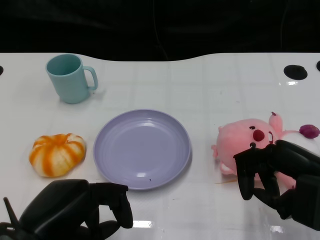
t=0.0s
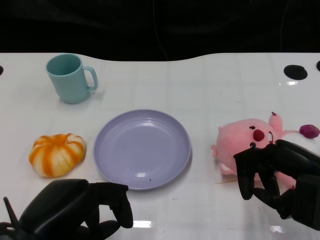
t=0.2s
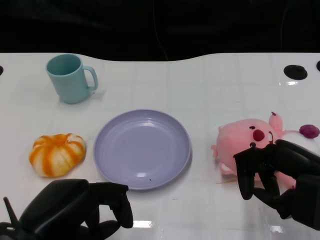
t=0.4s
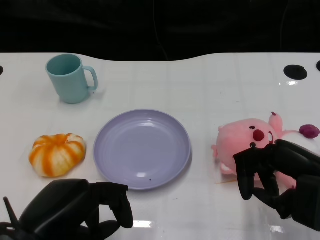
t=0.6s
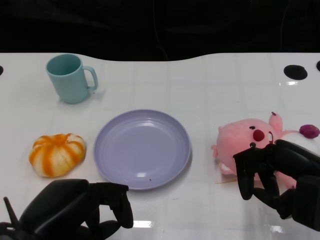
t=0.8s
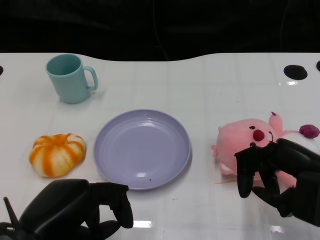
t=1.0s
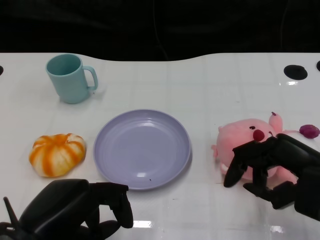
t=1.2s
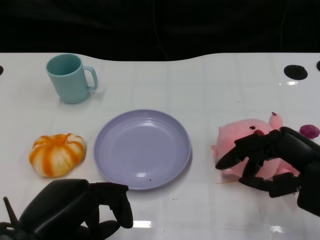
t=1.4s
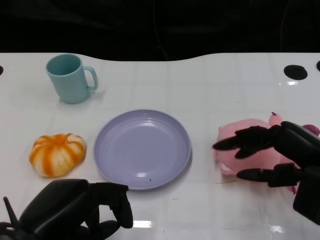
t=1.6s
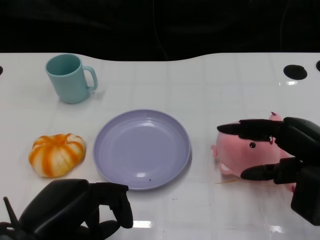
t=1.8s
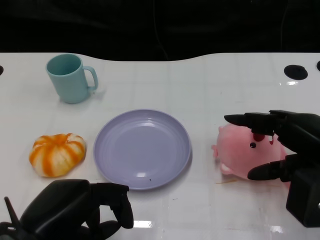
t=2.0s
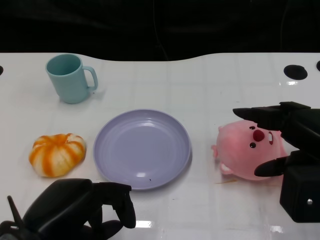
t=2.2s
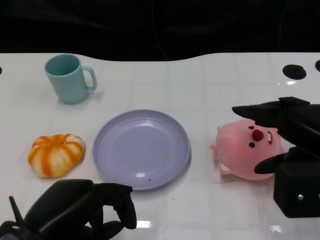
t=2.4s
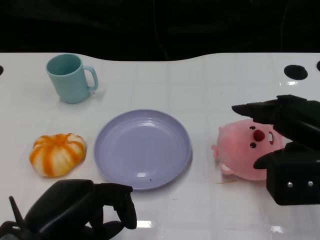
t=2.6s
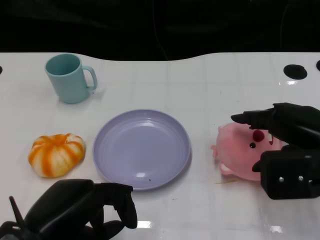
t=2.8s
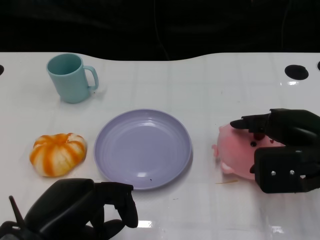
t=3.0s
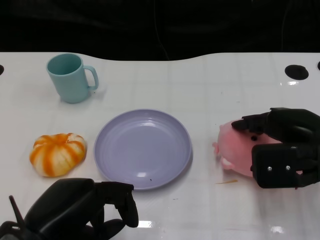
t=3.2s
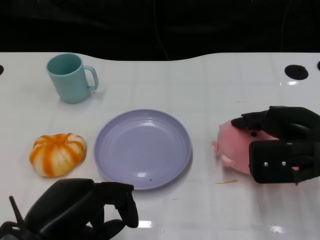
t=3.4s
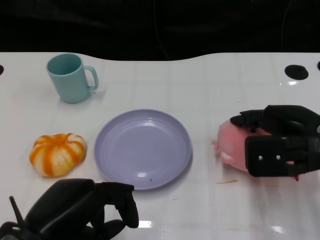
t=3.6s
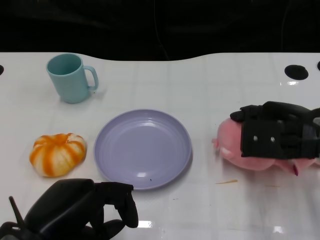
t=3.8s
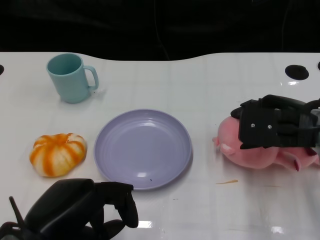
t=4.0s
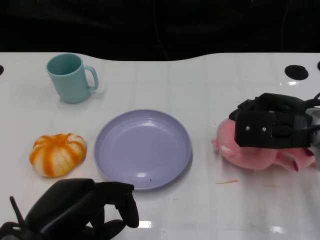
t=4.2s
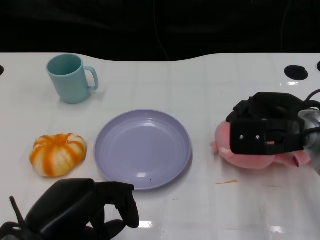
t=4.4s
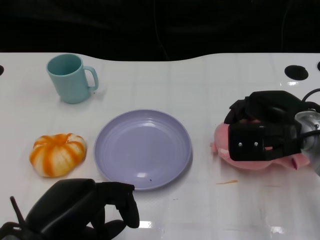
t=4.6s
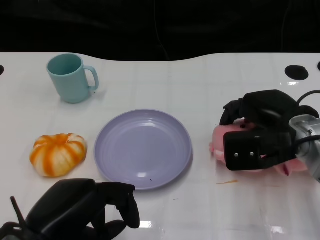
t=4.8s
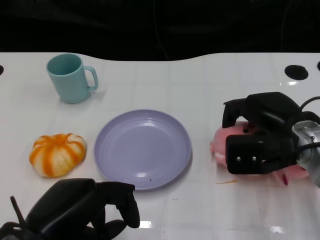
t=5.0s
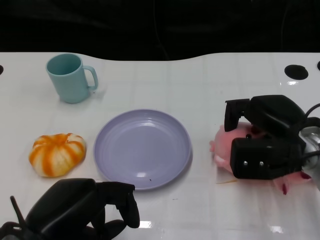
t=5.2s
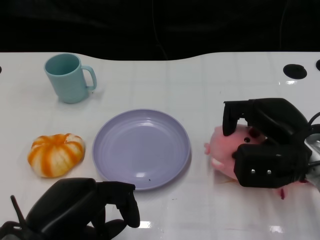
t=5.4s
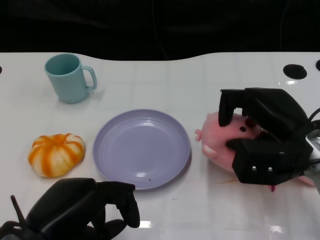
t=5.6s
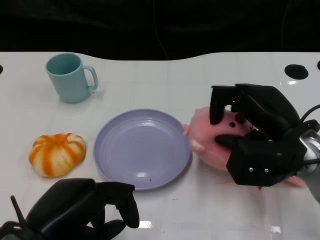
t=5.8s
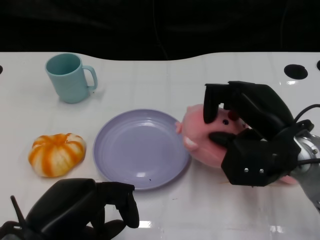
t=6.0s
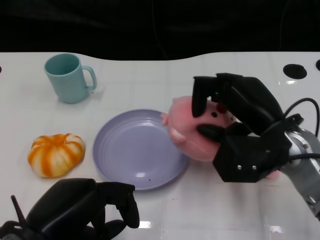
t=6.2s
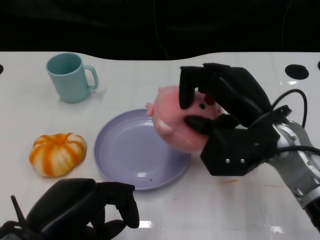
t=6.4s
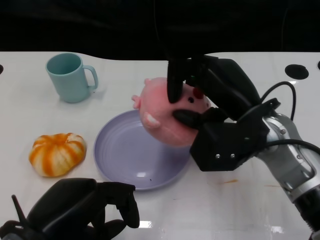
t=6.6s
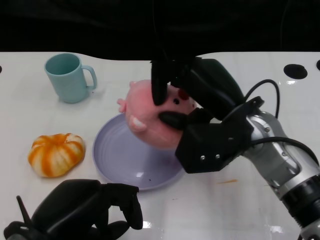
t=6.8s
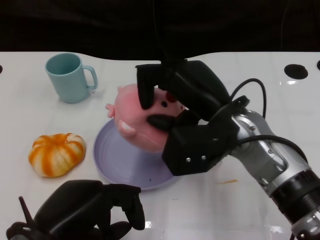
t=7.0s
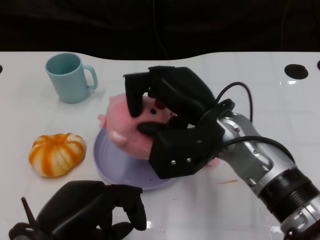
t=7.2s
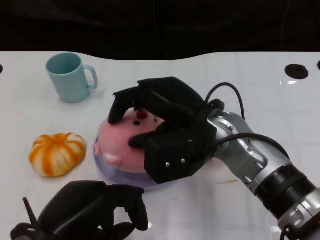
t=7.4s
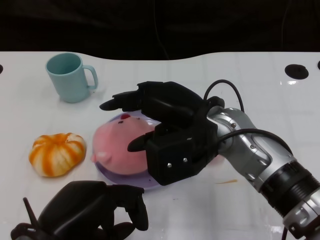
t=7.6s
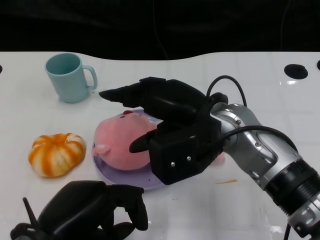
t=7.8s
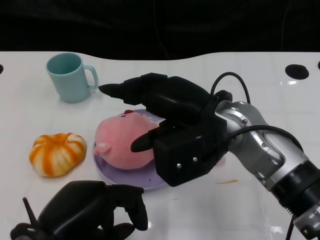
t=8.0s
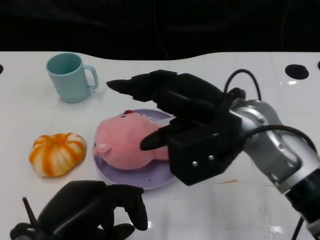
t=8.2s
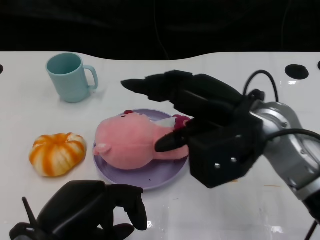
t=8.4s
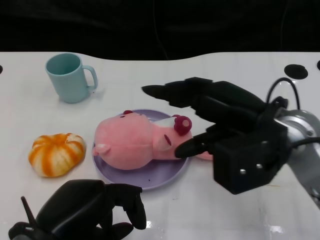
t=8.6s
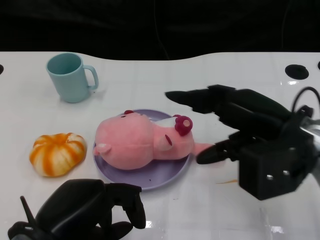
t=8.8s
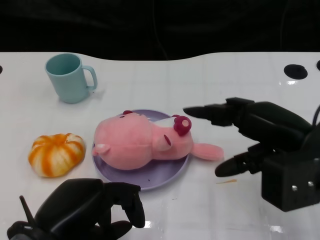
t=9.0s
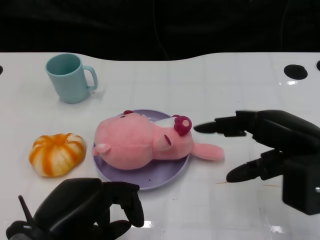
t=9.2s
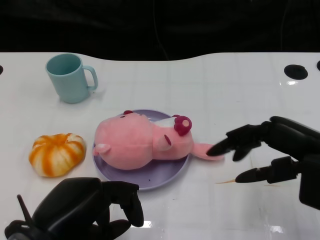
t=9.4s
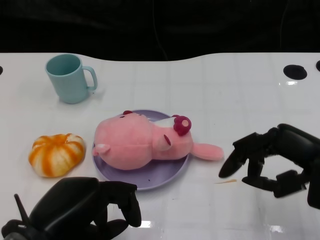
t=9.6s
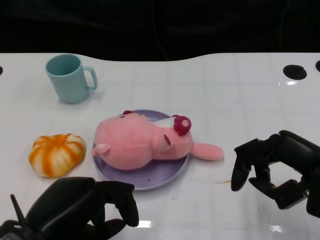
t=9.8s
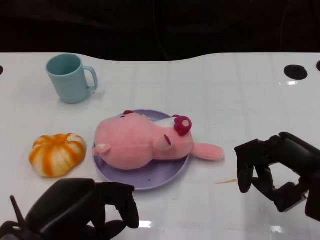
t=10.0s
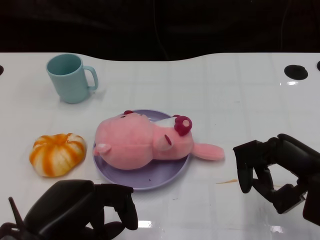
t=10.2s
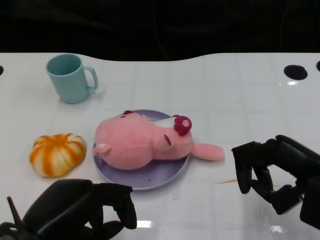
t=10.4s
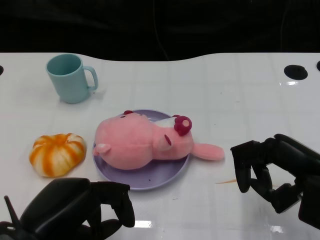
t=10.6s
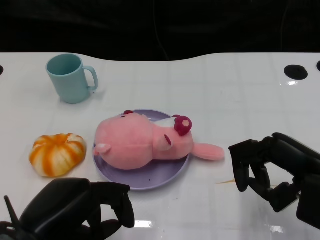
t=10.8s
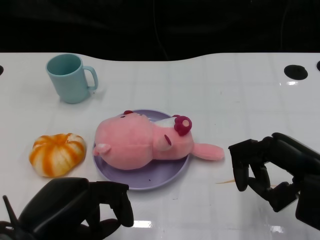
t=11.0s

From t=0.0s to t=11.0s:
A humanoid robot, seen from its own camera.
Task of the whole recording: Pick up the doll on the other side of the plate and place it into the plate.
Step, from t=1.0s to t=6.4s: Grasp the pink doll with the right gripper.
Step, from t=6.6s to t=9.0s: Place the pink doll into the plate with the right gripper.
From t=1.6s to t=3.2s: The right hand goes approximately 5 cm forward.
From t=3.2s to t=4.8s: The right hand shifts by roughly 5 cm.
From t=6.2s to t=7.8s: The right hand moves to the left, roughly 10 cm.
From t=7.8s to t=9.4s: The right hand shifts approximately 15 cm to the right.
From t=9.4s to t=11.0s: There are only small adjustments of the hands.

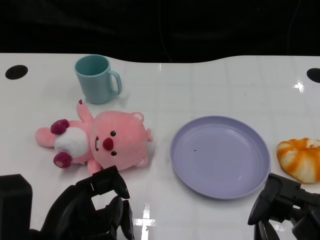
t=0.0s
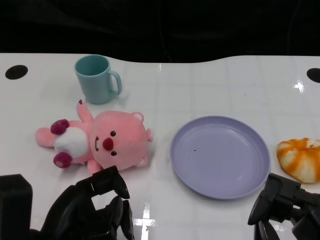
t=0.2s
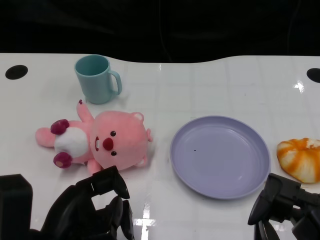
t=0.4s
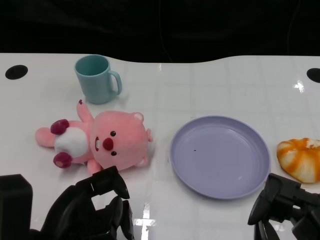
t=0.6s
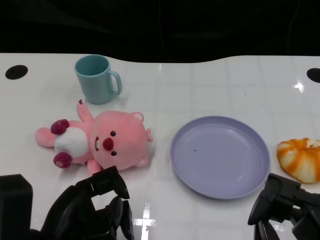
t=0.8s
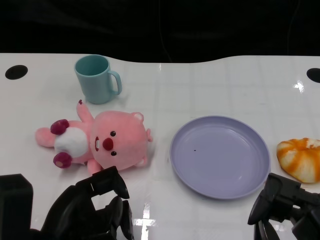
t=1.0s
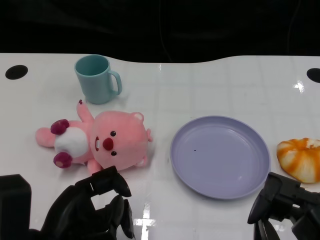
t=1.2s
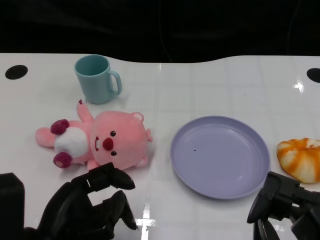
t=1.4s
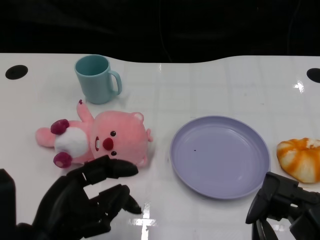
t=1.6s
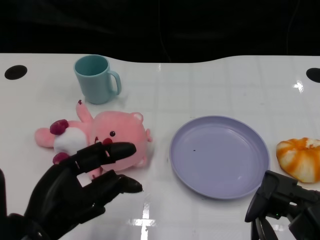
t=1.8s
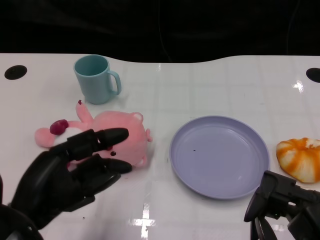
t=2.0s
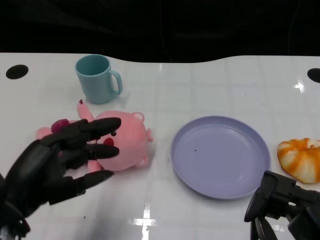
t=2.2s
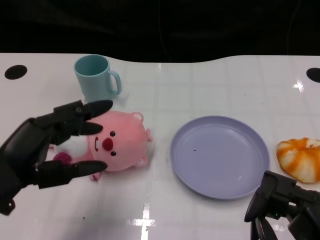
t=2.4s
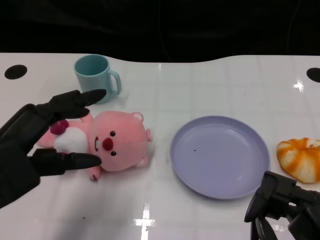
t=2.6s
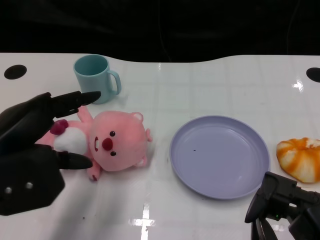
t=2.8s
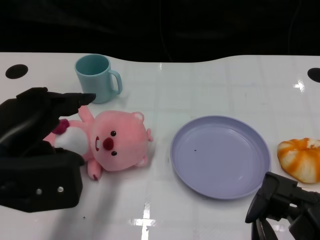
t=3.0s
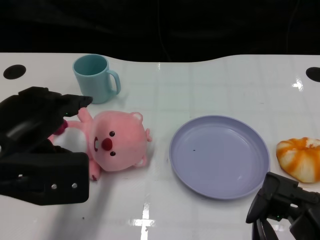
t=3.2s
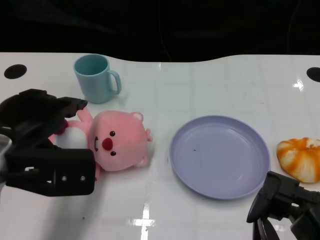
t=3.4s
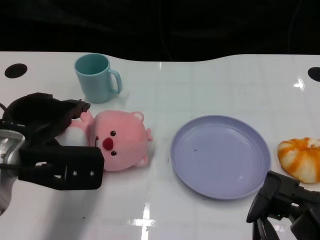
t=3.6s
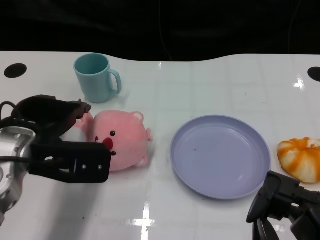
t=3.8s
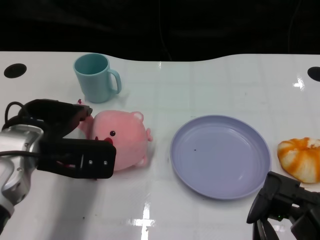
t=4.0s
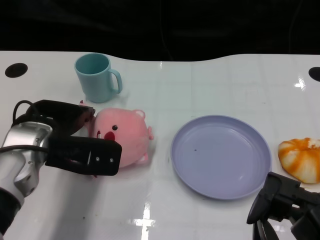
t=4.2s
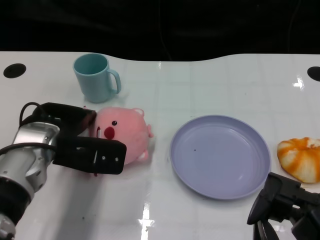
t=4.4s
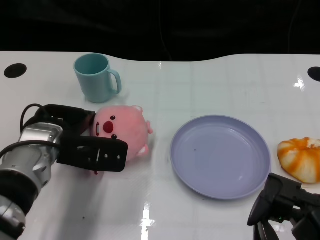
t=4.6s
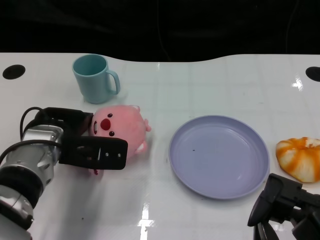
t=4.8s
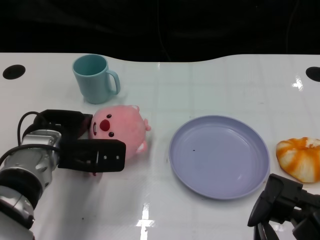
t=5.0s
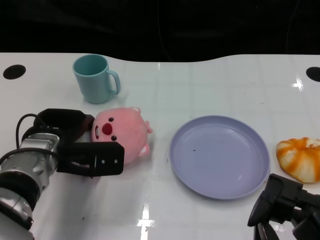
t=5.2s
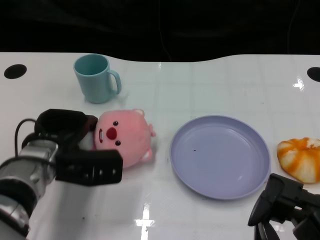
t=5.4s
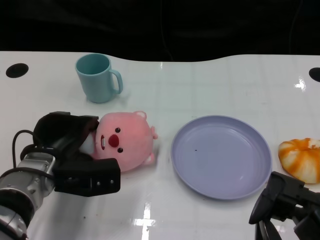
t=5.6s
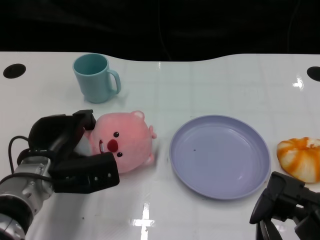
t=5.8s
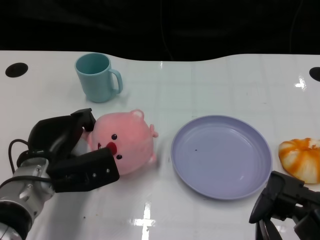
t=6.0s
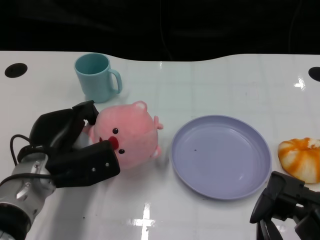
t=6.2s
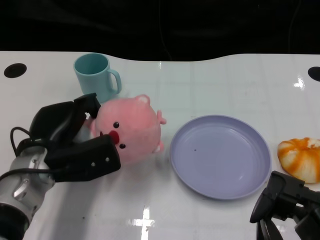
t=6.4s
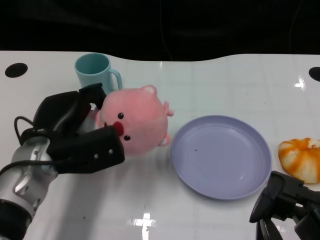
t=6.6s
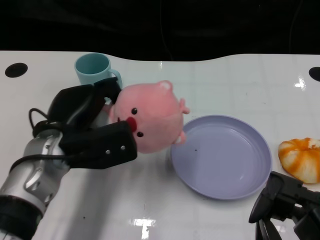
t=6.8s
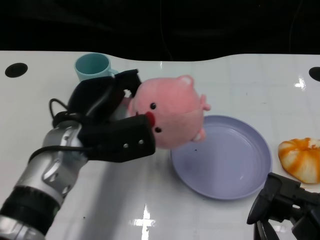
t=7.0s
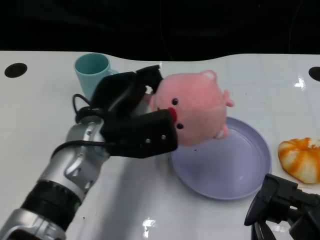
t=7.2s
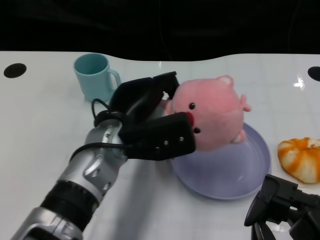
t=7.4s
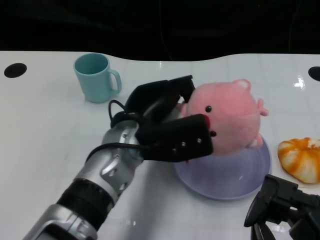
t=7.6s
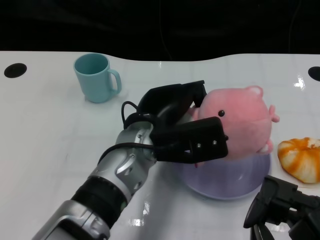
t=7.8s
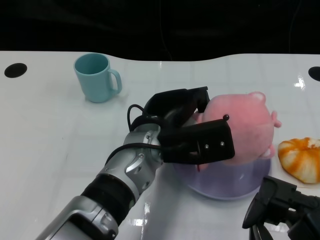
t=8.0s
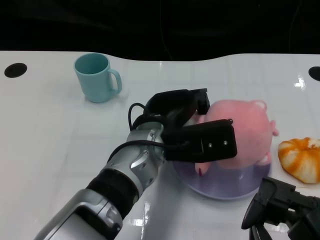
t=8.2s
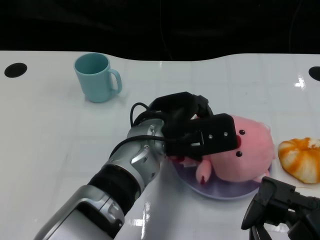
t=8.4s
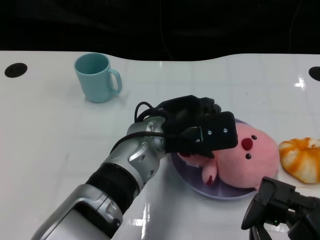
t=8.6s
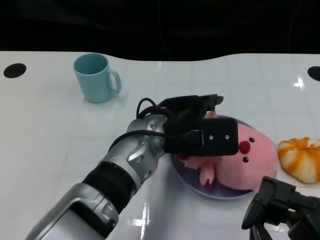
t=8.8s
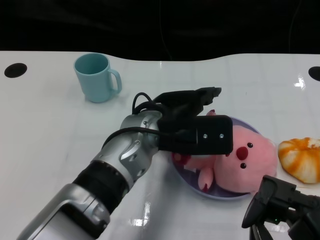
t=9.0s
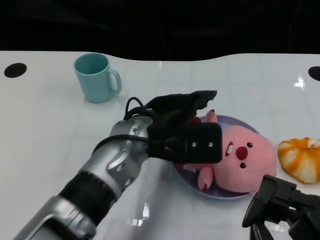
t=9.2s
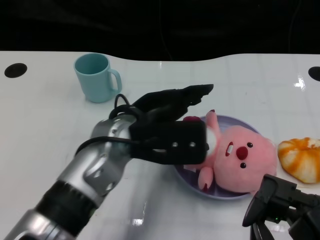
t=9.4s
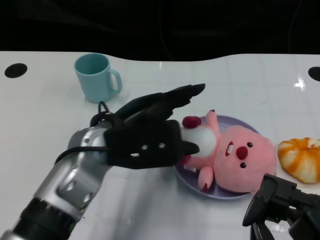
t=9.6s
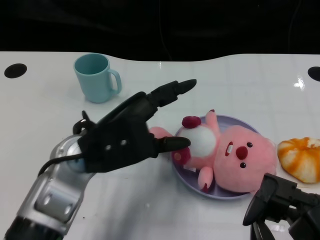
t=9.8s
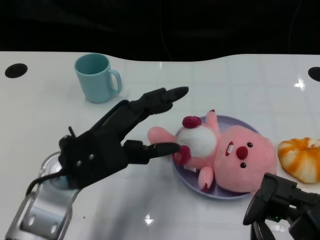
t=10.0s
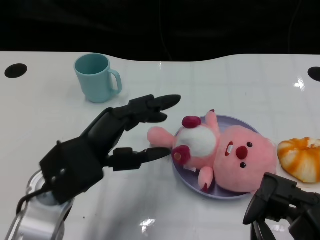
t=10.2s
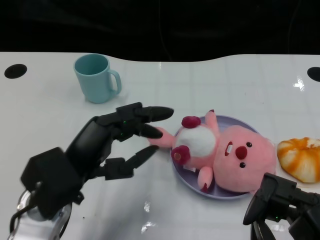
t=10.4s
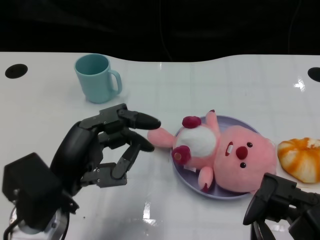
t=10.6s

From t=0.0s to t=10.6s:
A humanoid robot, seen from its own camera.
Task of the whole recording: Pick up the doll on one side of the plate and place it into the plate.
Step, from t=1.2s to t=6.0s: Grasp the pink doll with the left gripper.
Step, from t=6.2s to t=9.6s: Place the pink doll into the plate with the left gripper.
From t=1.6s to t=3.0s: The left hand moves upward and forward, about 10 cm.
From t=3.0s to t=4.6s: The left hand heads forward, downward and to the right, covering roughly 15 cm.
From t=4.6s to t=6.0s: The left hand travels downward by some 5 cm.
From t=6.0s to t=7.6s: The left hand travels to the right and upward by about 15 cm.
From t=9.0s to t=10.6s: The left hand goes roughly 15 cm to the left and backward.

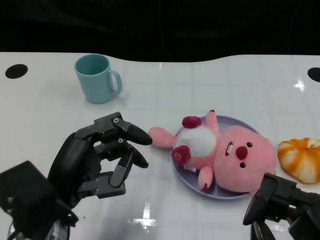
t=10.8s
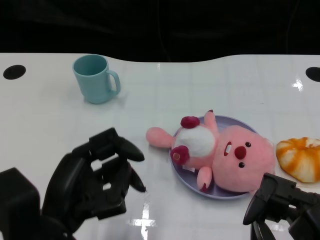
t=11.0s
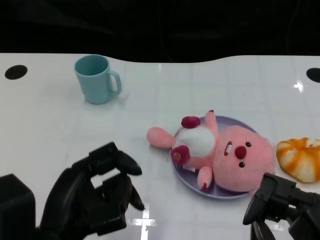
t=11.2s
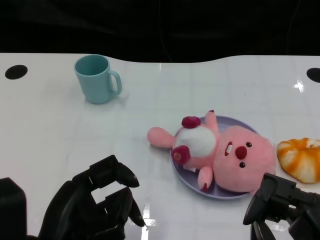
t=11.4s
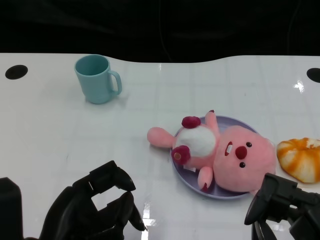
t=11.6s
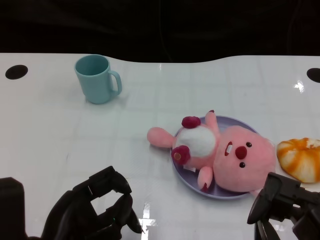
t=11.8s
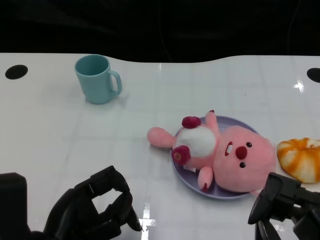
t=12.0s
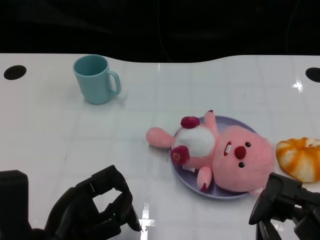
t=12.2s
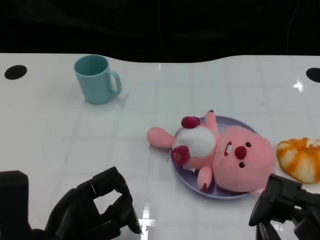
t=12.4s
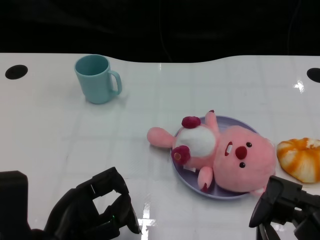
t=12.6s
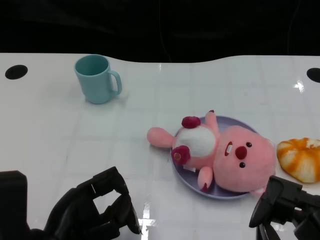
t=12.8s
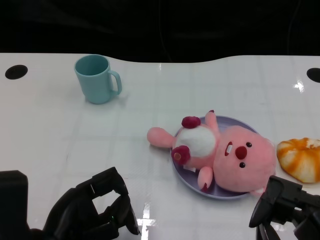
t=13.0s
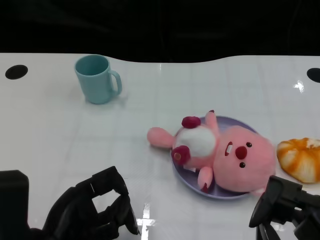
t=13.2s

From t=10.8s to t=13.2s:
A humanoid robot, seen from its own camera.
Task of the whole recording: Pick up the doll on one side of the plate and place it into the plate.
From t=12.0s to t=13.2s: Both hands stay about where they are.
